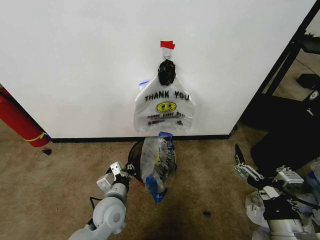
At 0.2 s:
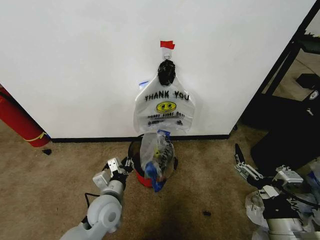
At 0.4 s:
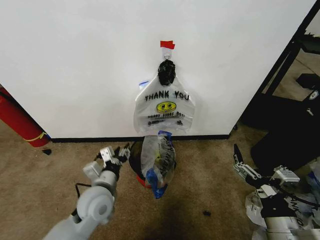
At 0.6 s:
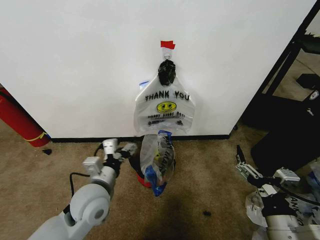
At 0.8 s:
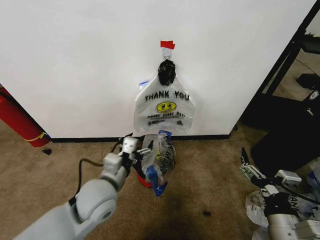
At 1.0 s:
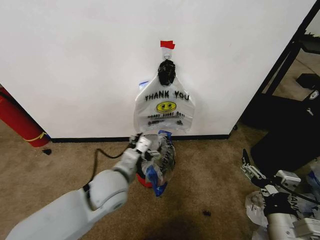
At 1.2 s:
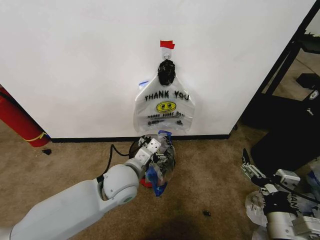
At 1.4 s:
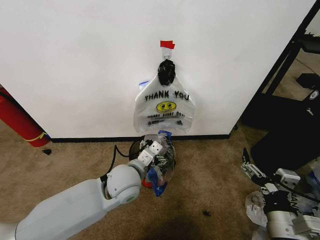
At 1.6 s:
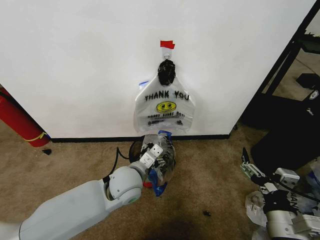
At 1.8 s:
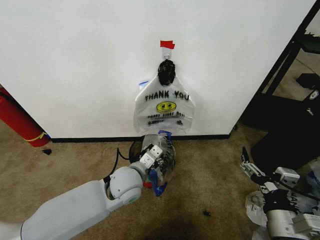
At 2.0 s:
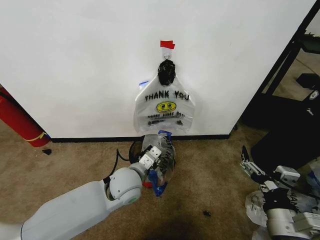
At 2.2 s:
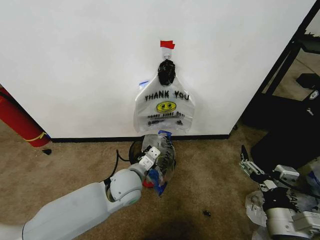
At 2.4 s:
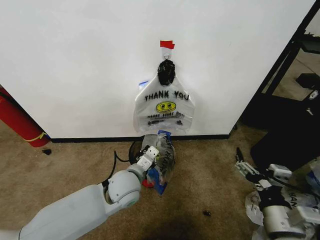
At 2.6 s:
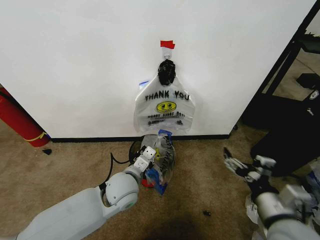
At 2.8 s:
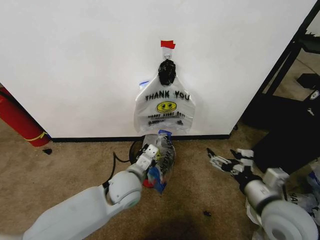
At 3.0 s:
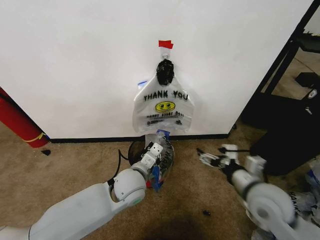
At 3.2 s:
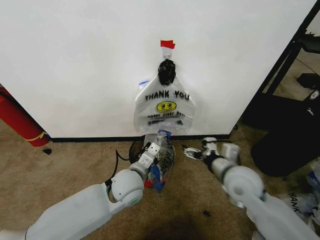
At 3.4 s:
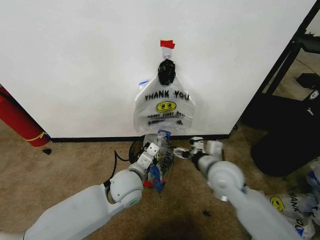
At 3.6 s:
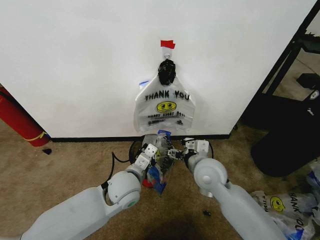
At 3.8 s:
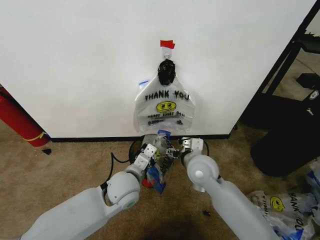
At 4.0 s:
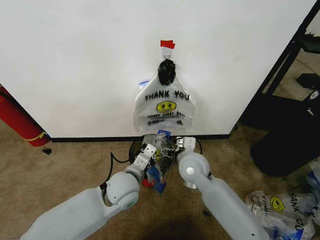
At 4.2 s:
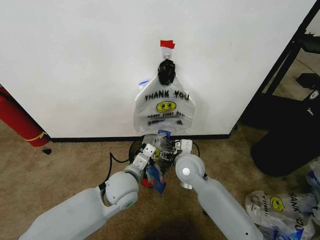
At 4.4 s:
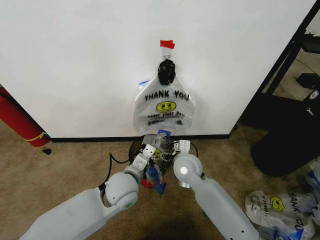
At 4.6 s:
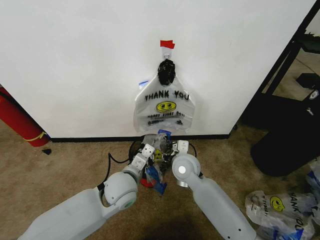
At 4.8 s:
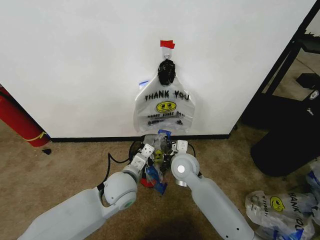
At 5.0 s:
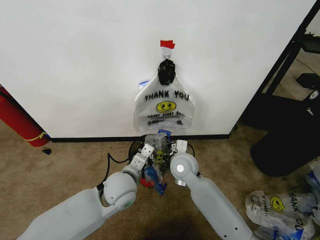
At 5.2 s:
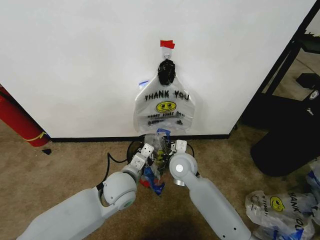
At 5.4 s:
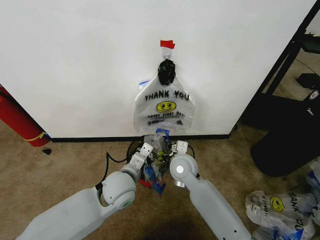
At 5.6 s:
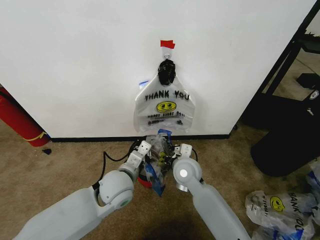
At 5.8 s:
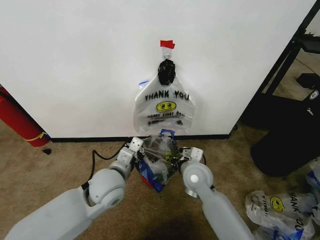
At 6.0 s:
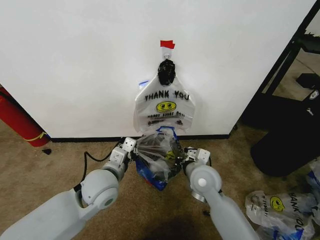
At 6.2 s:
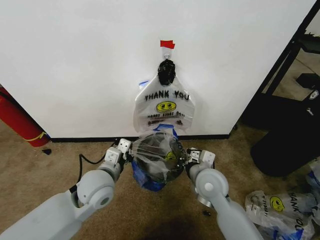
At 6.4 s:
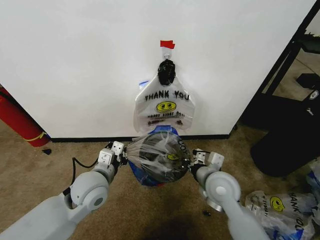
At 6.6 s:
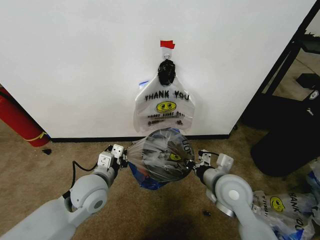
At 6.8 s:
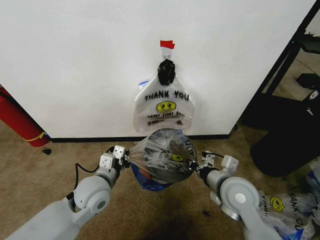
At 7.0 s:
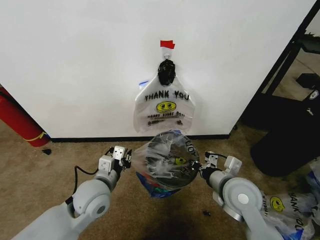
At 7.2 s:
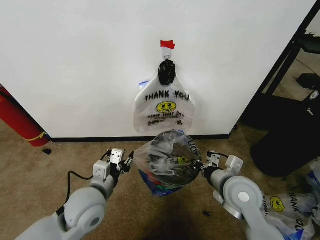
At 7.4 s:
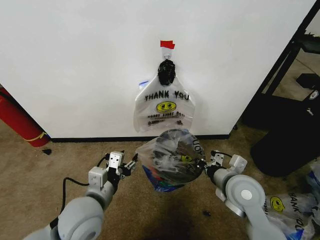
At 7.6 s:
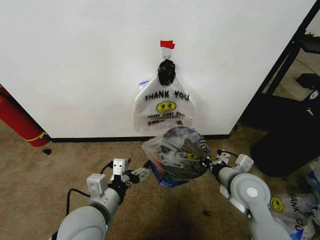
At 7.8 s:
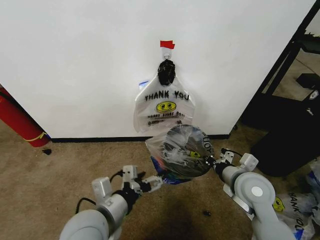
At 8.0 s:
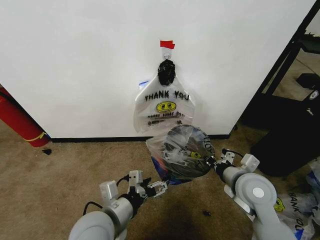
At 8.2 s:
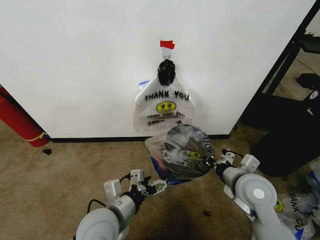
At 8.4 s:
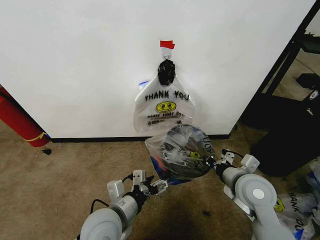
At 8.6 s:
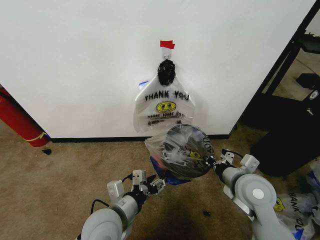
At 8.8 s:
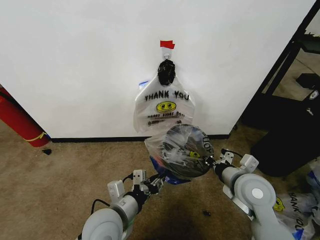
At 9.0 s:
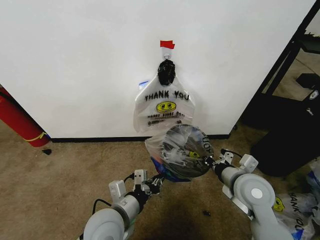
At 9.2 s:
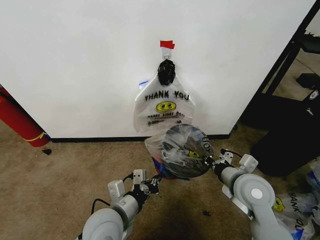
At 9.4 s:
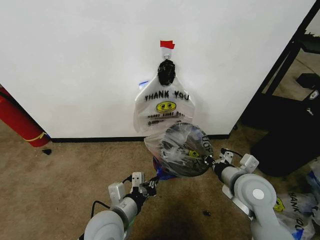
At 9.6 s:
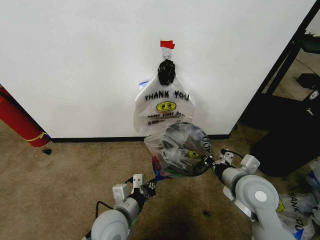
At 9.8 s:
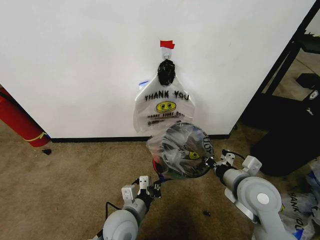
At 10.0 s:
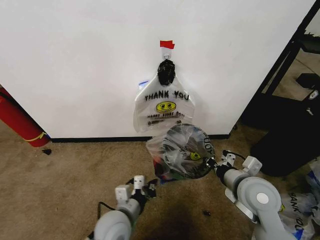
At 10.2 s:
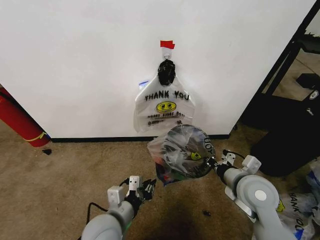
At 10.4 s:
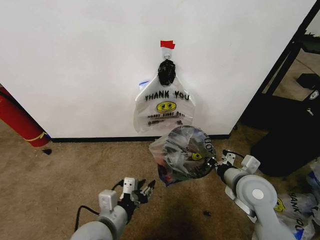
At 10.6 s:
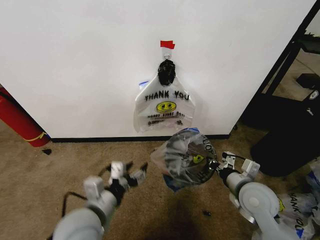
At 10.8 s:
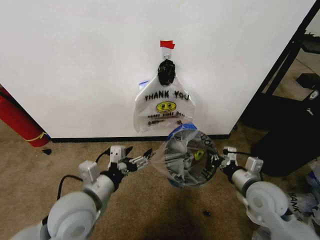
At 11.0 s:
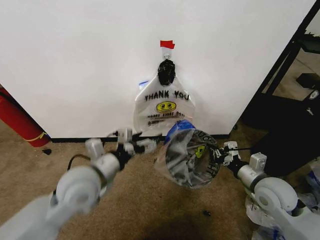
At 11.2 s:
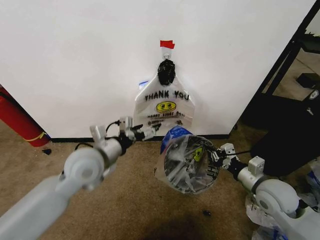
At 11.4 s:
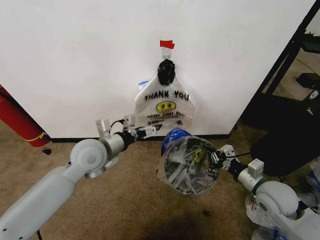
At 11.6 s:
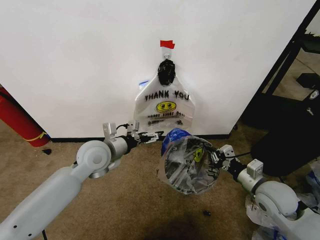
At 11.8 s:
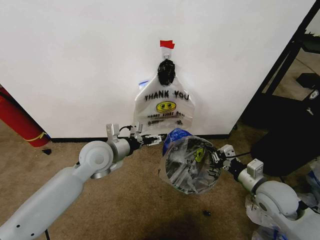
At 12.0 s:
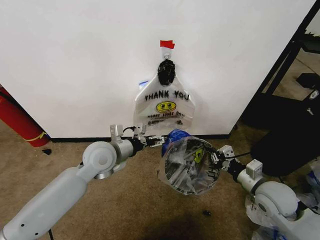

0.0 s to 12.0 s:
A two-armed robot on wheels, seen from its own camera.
Task of the whole recording: Pick up the garbage bag from the wall and place it over the trash bin.
0.0 to 1.6 s: The left gripper goes roughly 10 cm upward, to the right and forward, and opens up.
1.6 to 3.0 s: The right gripper heads forward, covering some 10 cm, while the left gripper closes its fingers.
3.0 to 4.4 s: The right gripper is displaced to the left and forward by about 20 cm.
4.4 to 6.0 s: The right gripper shifts by approximately 5 cm, and closes. Meanwhile the left gripper goes about 5 cm to the left.
6.0 to 7.6 s: The right gripper goes roughly 10 cm to the right; the left gripper is displaced backward by about 10 cm, and opens.
7.6 to 9.0 s: The left gripper moves approximately 5 cm, and closes up.
10.4 to 12.0 s: The right gripper is displaced to the right by about 5 cm. Meanwhile the left gripper shifts about 20 cm forward, and opens up.

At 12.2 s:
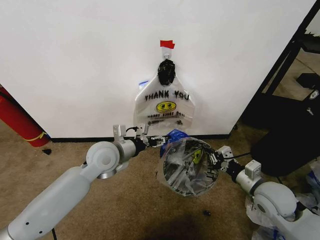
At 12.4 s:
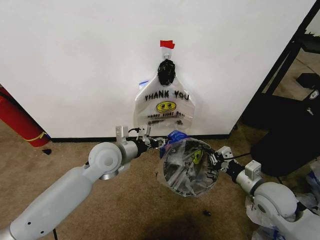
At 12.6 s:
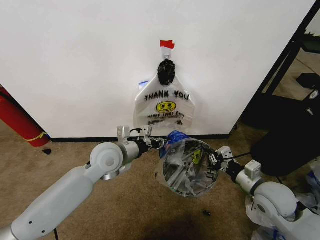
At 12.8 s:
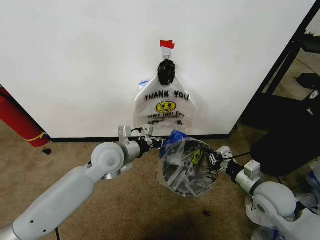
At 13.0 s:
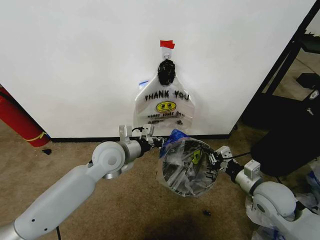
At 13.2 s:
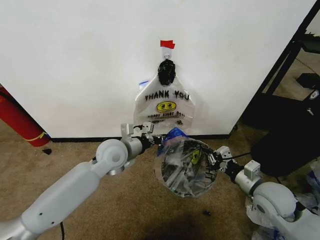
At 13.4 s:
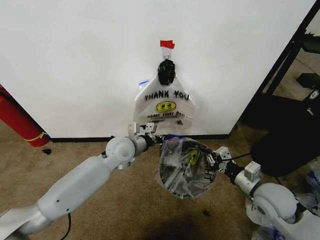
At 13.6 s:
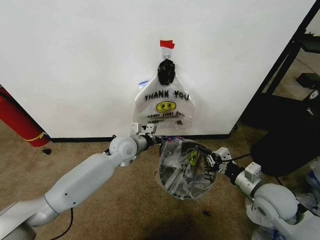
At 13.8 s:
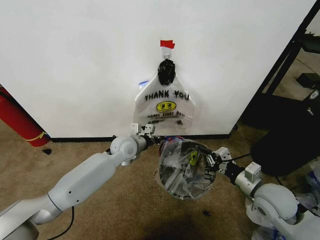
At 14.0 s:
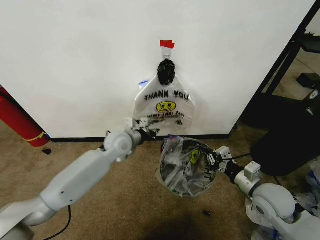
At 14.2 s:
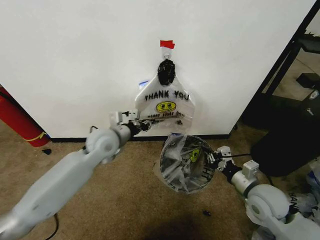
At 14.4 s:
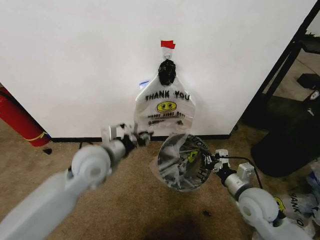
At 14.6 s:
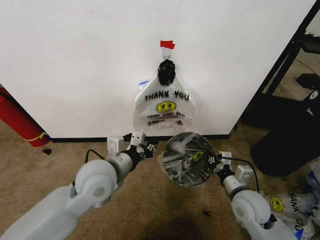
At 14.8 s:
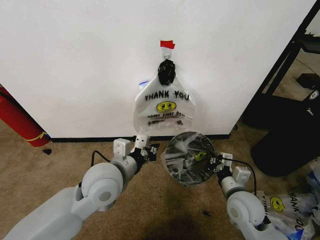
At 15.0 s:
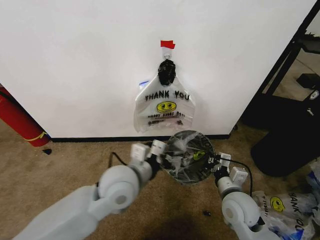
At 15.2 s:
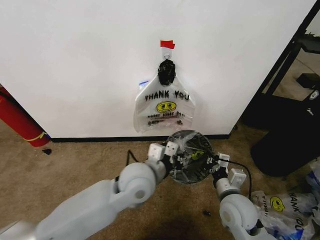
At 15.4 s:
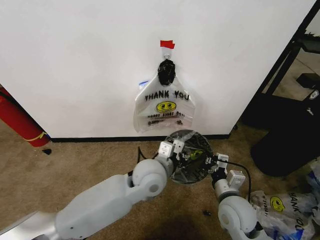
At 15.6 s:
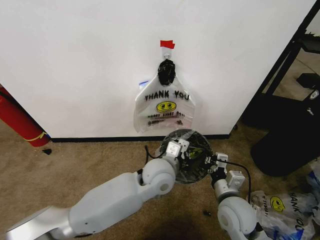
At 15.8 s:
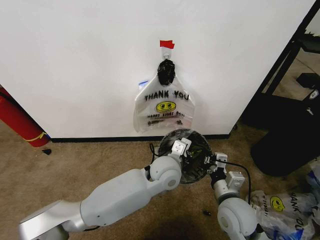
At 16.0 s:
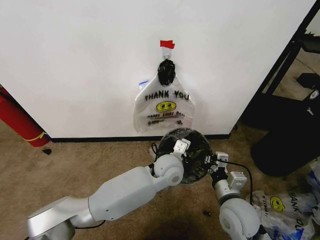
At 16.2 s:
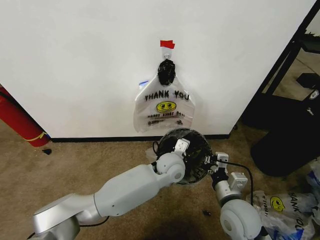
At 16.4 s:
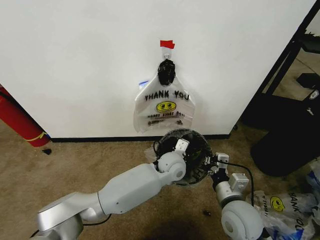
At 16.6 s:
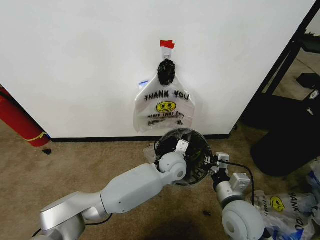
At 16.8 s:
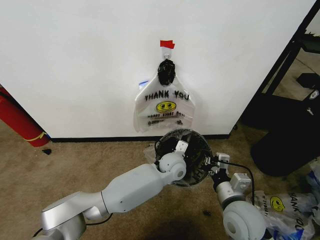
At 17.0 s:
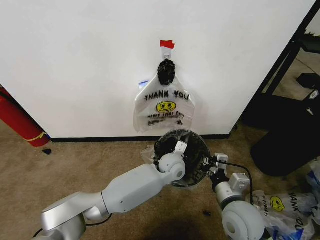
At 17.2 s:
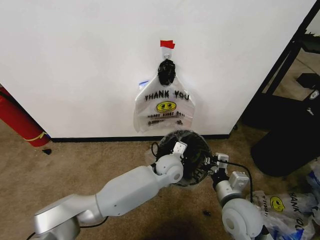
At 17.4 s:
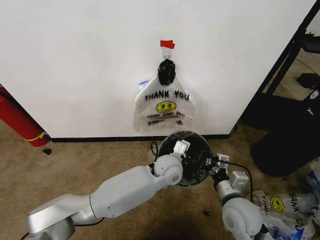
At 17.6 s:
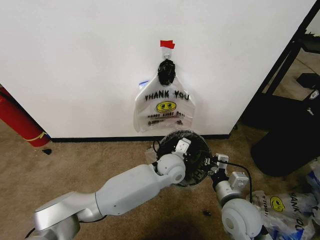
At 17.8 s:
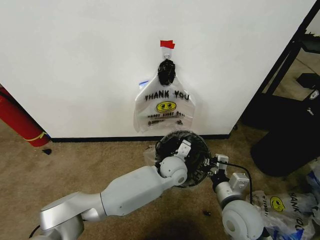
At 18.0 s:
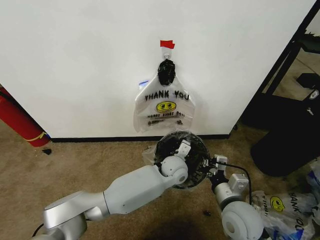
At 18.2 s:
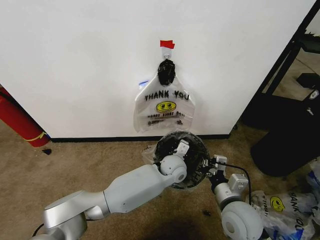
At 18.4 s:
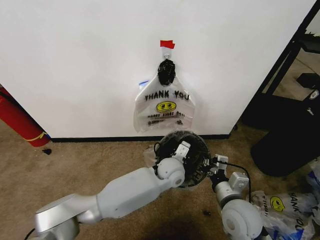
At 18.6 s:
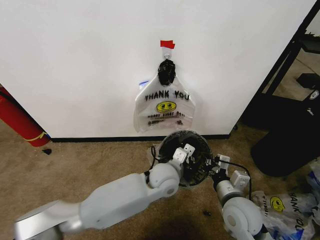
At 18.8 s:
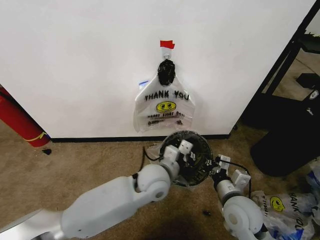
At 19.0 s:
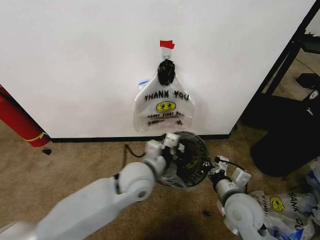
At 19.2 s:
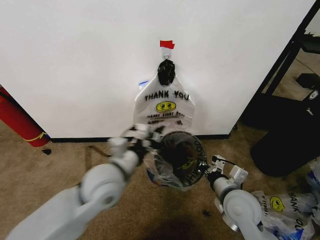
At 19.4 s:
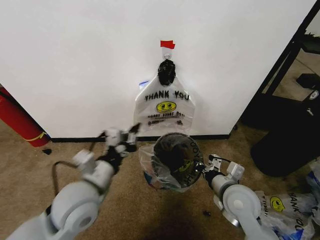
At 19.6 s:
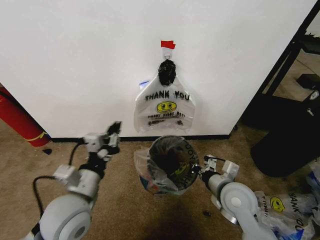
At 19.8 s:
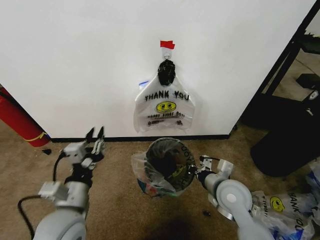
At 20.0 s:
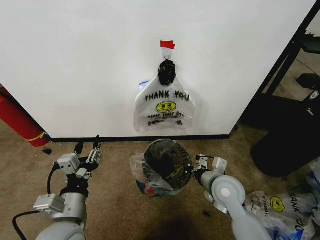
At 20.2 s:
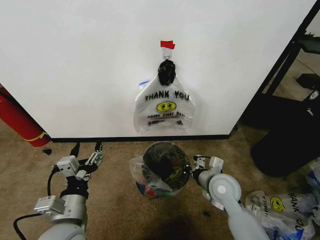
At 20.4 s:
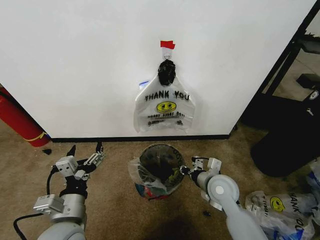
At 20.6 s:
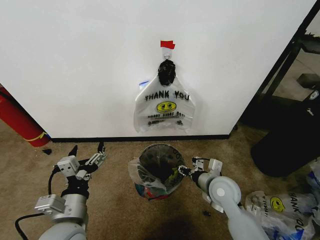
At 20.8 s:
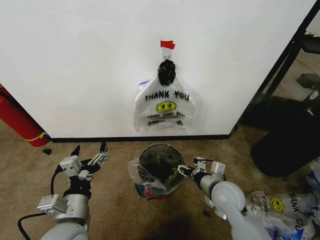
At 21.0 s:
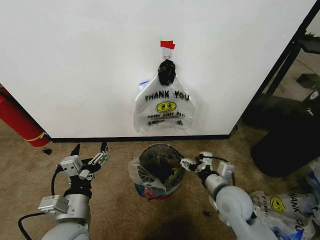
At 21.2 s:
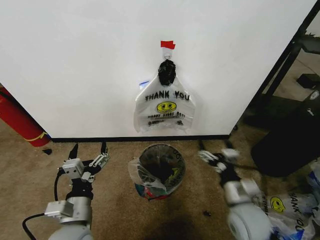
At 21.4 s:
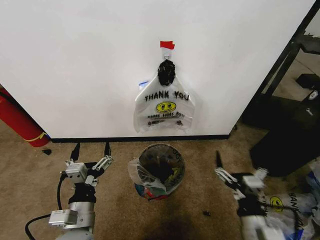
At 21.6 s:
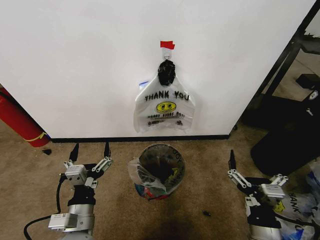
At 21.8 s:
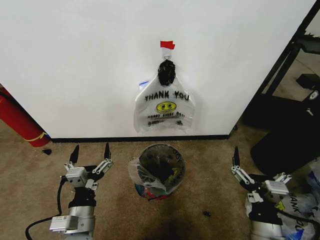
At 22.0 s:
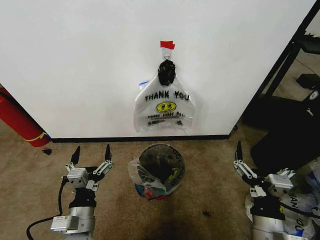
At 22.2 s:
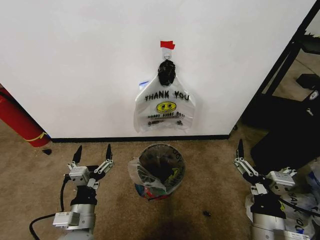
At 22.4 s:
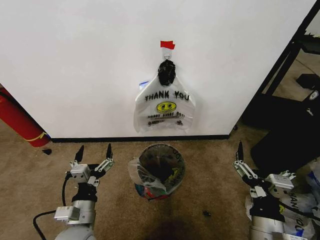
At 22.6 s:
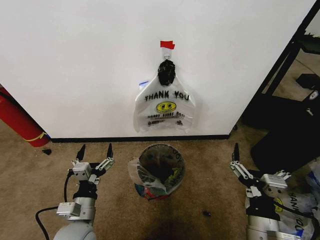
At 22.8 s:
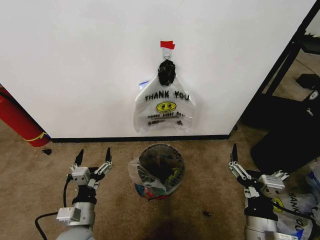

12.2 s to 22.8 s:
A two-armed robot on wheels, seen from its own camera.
Task of the whole recording: Pick up the garbage bag from the wall and place it over the trash bin.
12.2 to 13.8 s: The left gripper moves forward and downward, some 10 cm, and closes.
13.8 to 15.2 s: The right gripper moves to the left, roughly 10 cm. The left gripper is displaced backward and to the right by some 20 cm.
15.2 to 16.8 s: The left gripper heads forward, to the right and downward, covering some 20 cm.
16.8 to 18.2 s: There are only small adjustments of the grippers.
18.2 to 19.8 s: The left gripper moves to the left and backward, approximately 35 cm, and opens up; the right gripper goes roughly 5 cm forward.
19.8 to 21.2 s: The left gripper opens. Meanwhile the right gripper heads backward, covering some 5 cm, and opens.
21.2 to 22.8 s: The left gripper moves downward, approximately 5 cm. The right gripper travels backward by approximately 10 cm.
